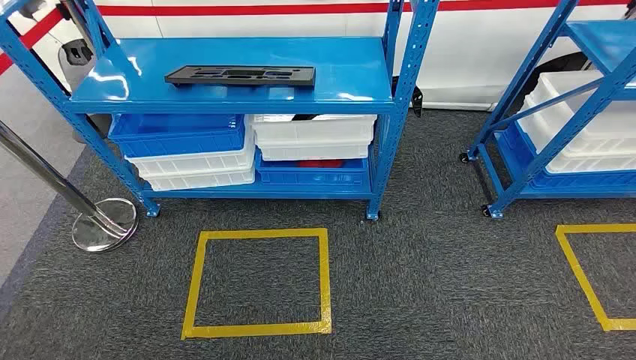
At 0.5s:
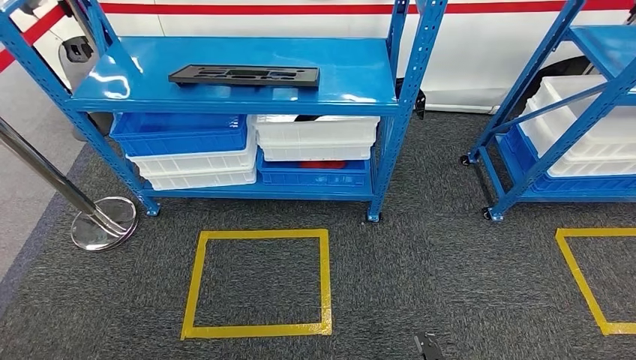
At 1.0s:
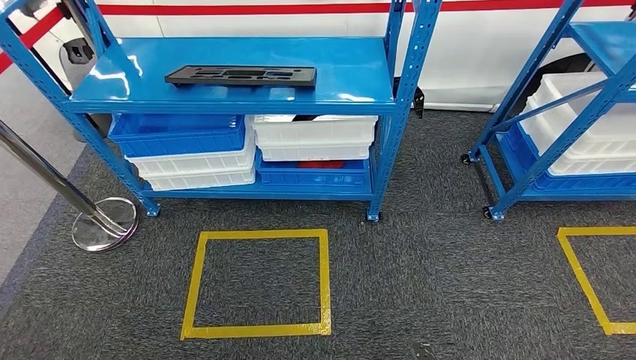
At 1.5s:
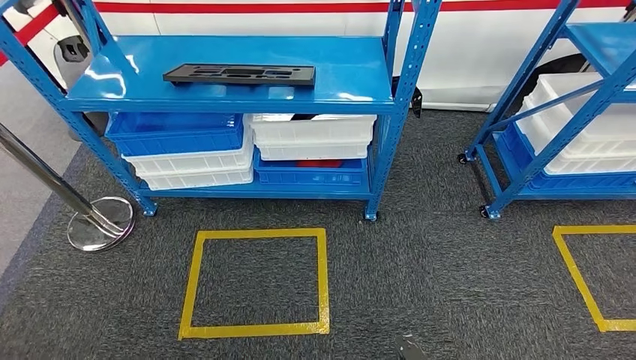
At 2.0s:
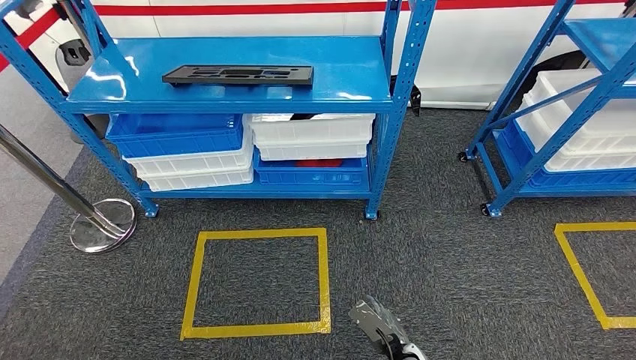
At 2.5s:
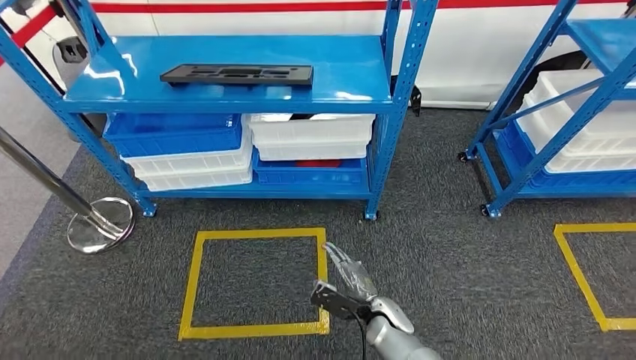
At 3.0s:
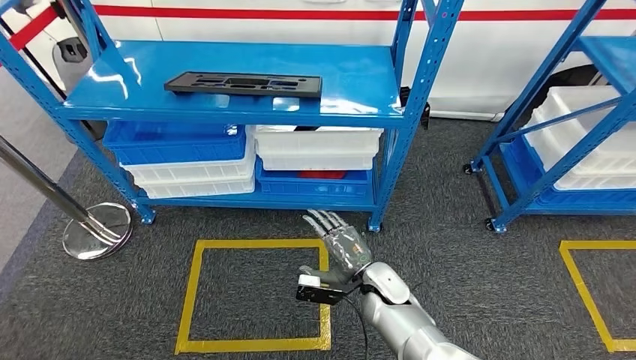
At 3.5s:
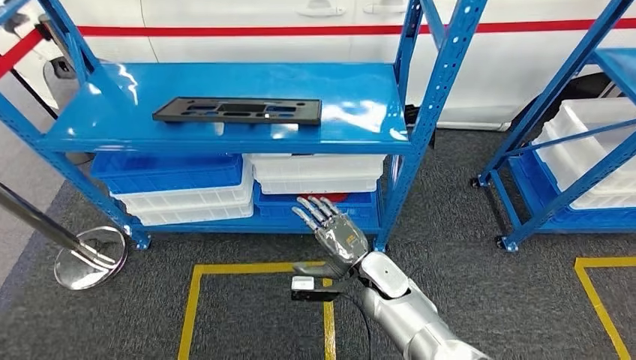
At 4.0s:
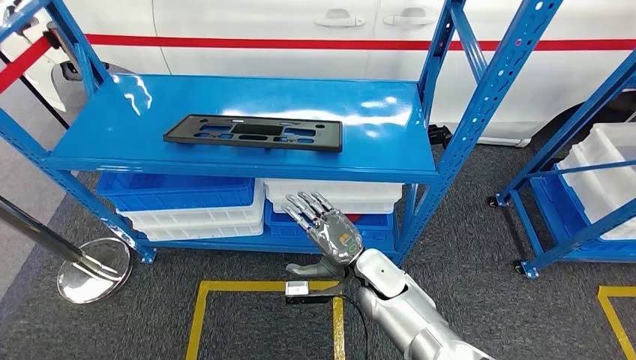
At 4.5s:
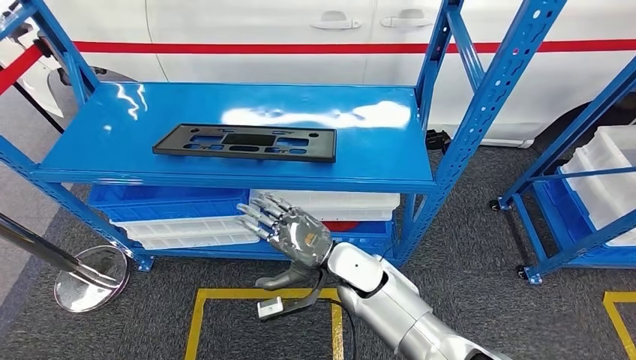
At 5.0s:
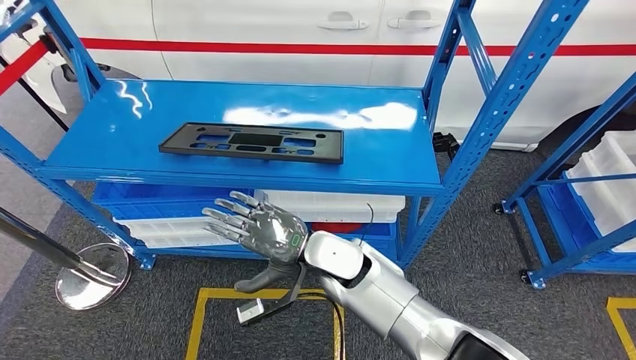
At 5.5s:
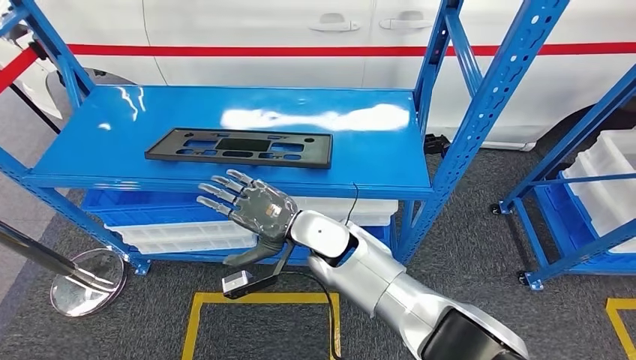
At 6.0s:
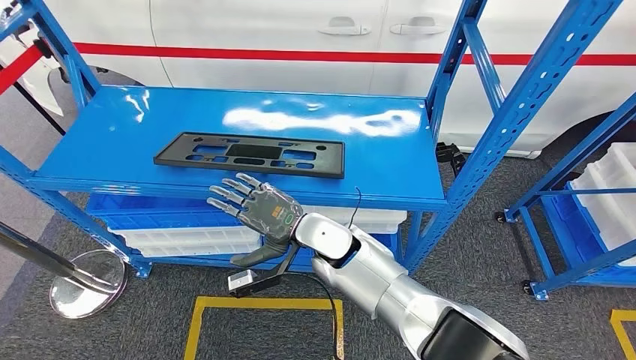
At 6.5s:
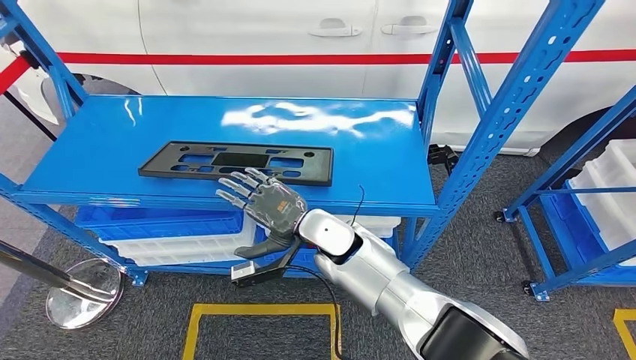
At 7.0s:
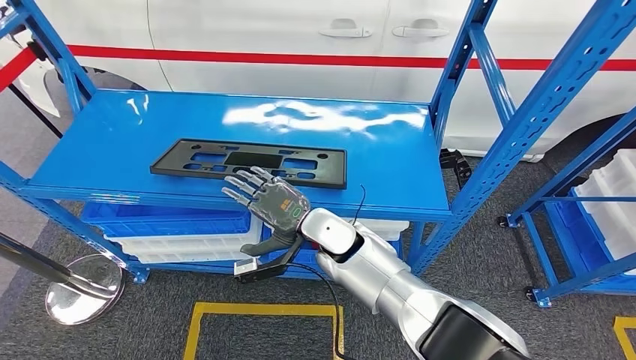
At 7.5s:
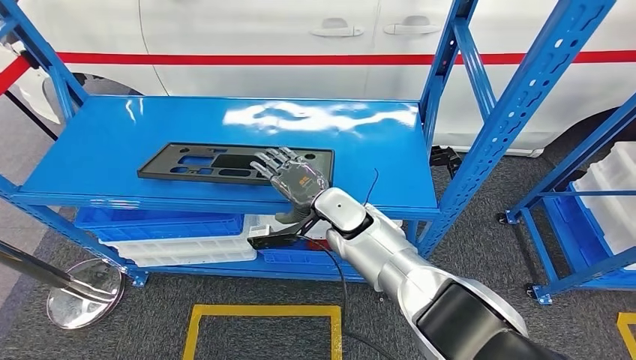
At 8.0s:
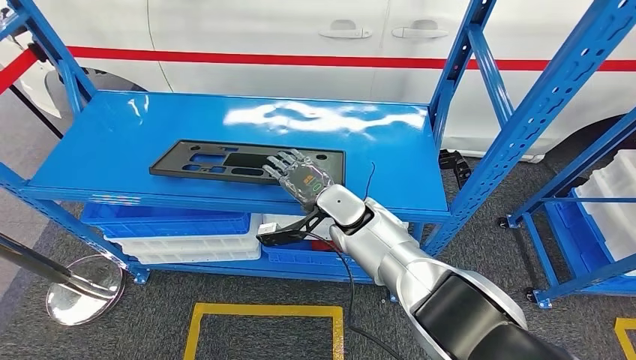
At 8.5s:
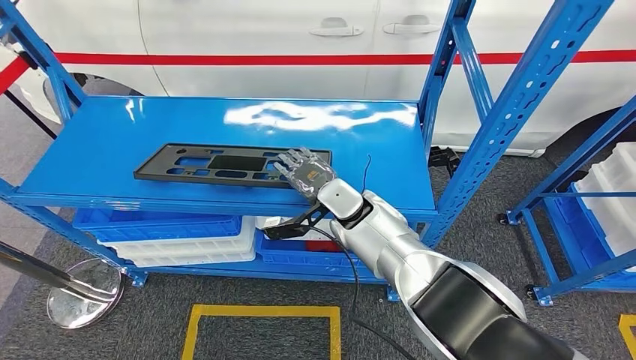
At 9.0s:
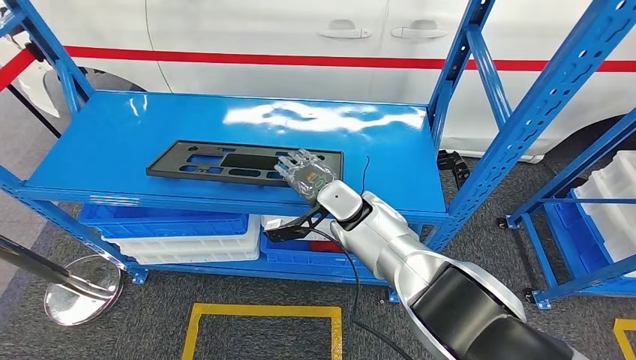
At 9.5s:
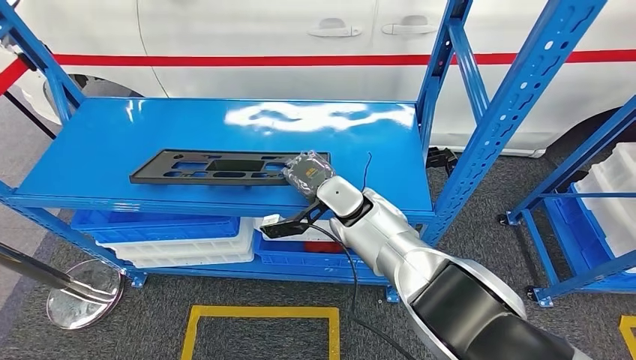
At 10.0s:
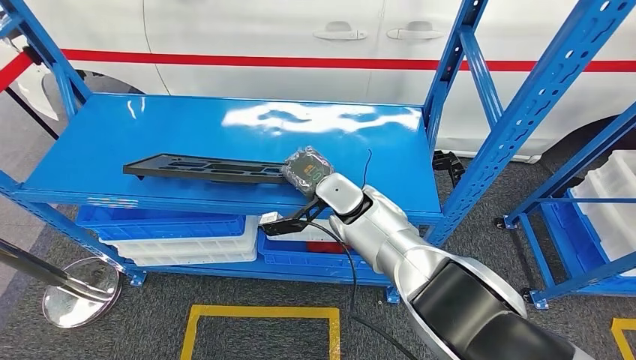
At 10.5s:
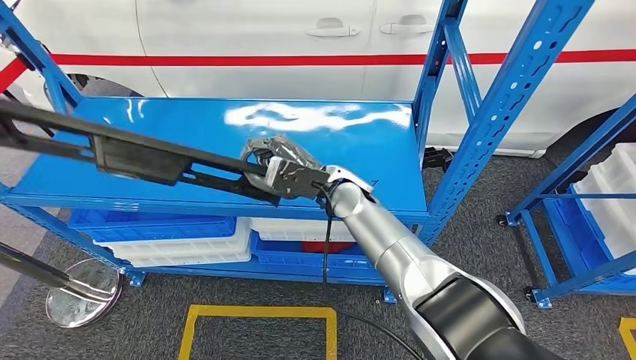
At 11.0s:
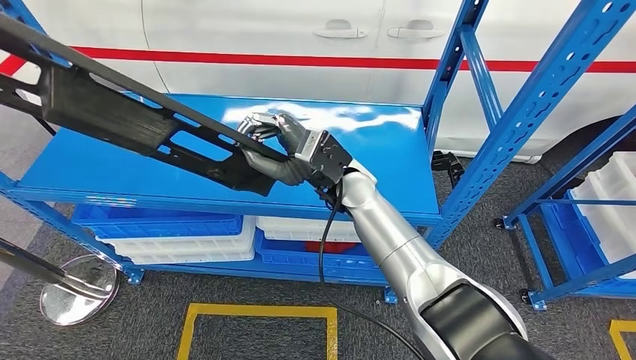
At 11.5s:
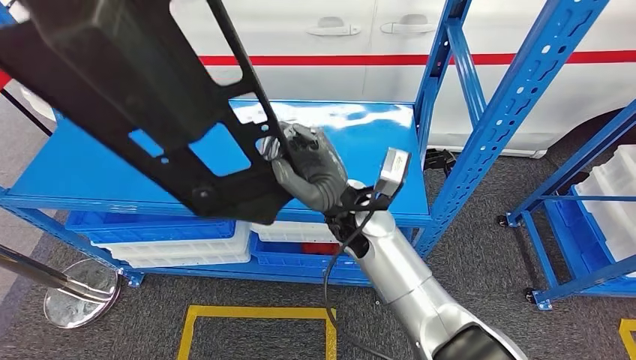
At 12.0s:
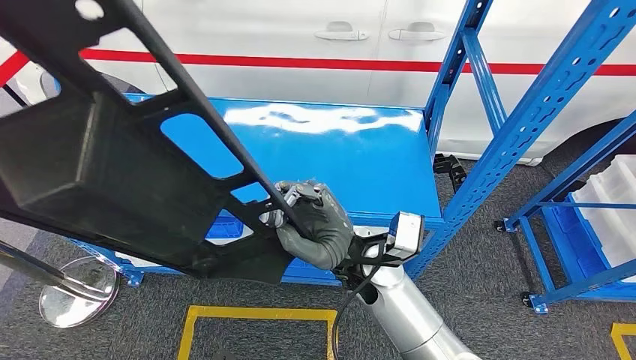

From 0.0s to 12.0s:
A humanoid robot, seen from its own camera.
Step, from 0.0s to 10.5s: Pick up the large material from the shelf.

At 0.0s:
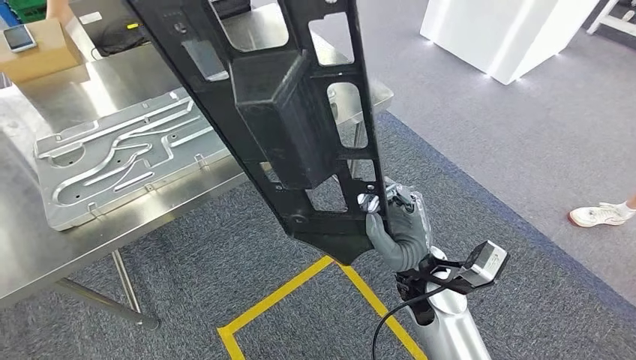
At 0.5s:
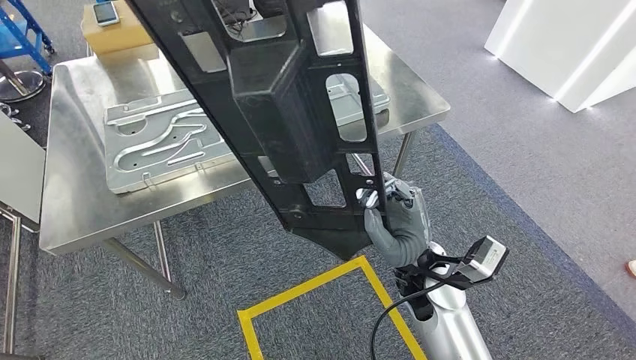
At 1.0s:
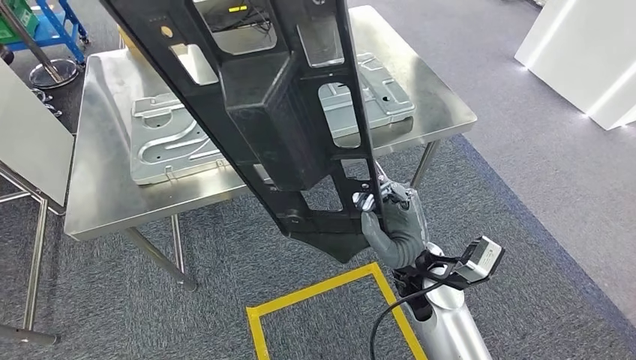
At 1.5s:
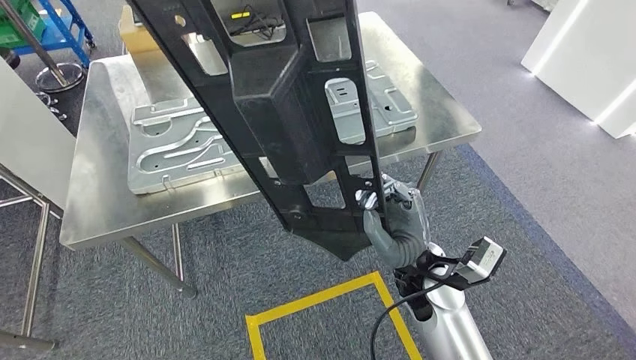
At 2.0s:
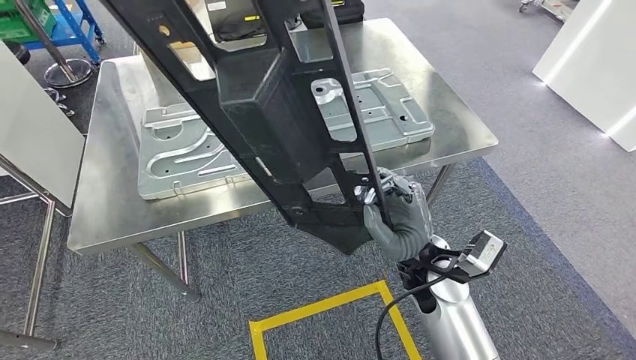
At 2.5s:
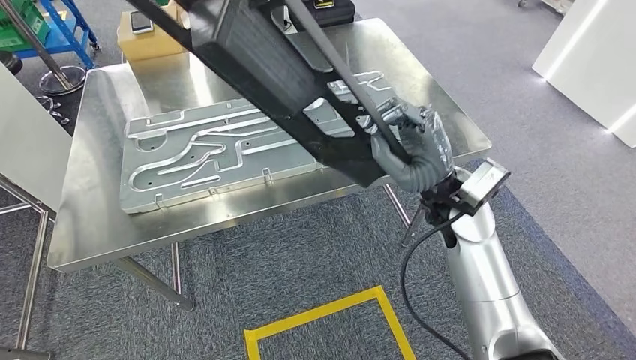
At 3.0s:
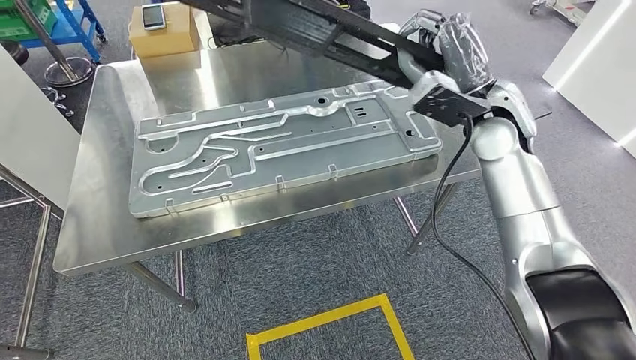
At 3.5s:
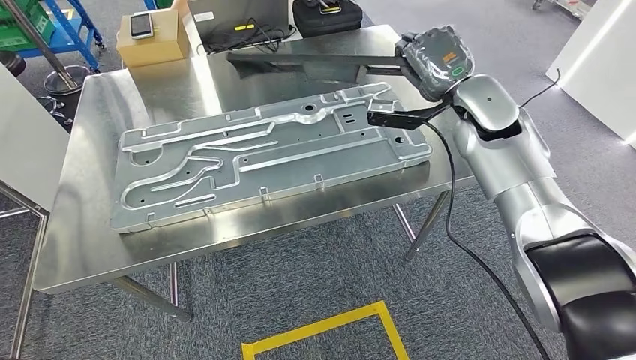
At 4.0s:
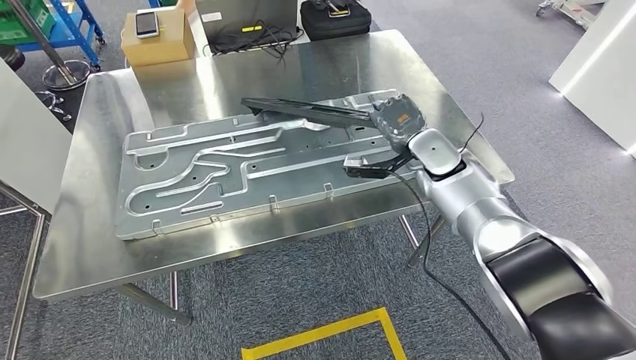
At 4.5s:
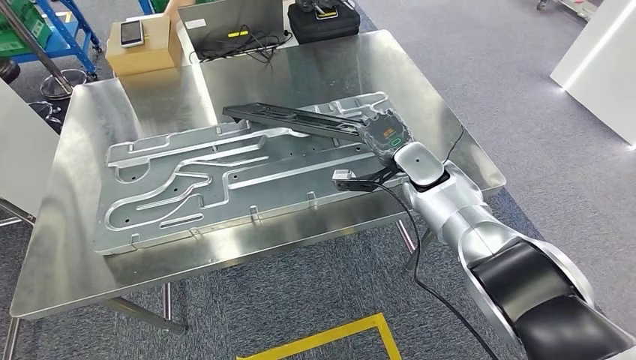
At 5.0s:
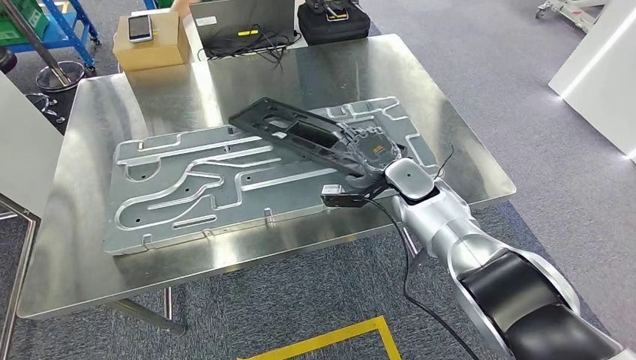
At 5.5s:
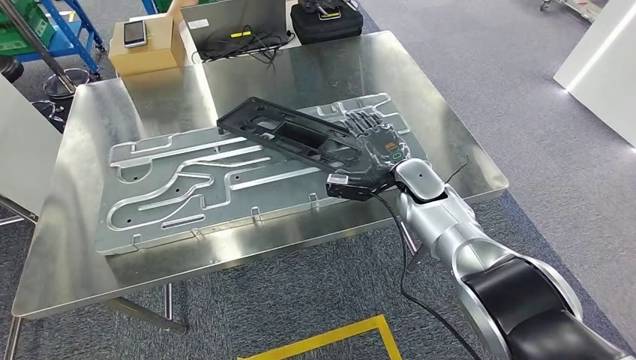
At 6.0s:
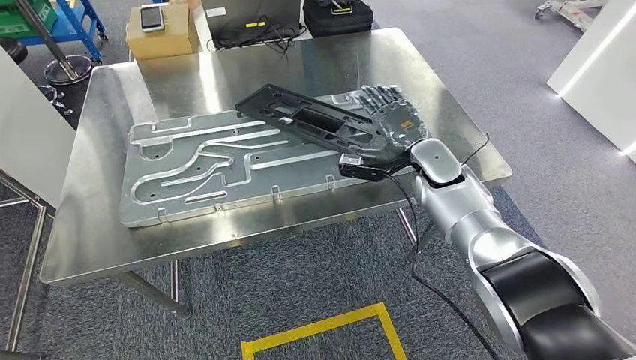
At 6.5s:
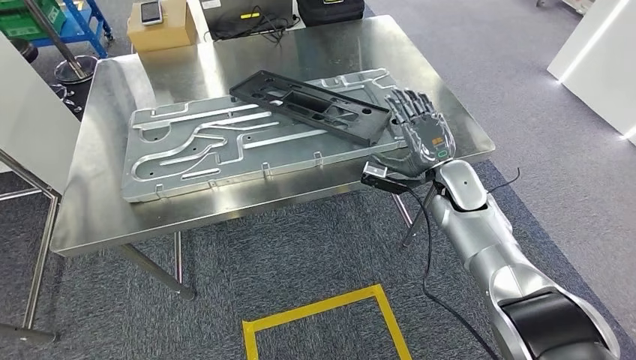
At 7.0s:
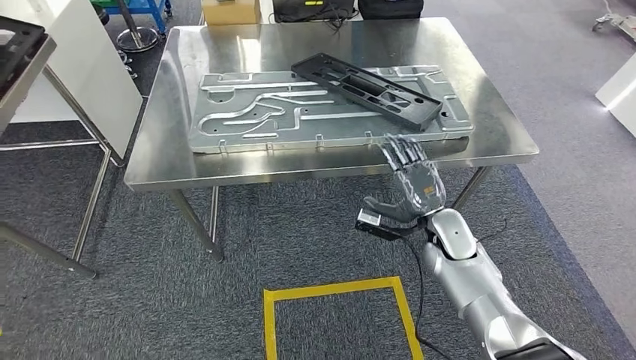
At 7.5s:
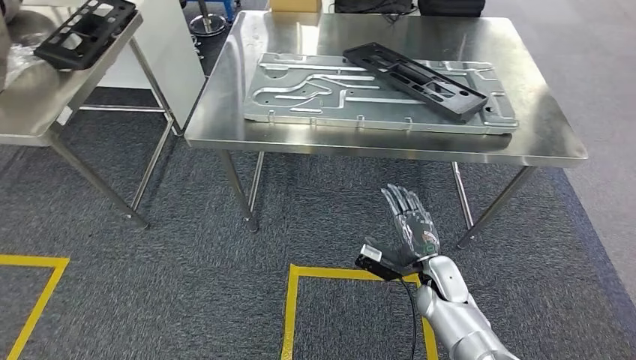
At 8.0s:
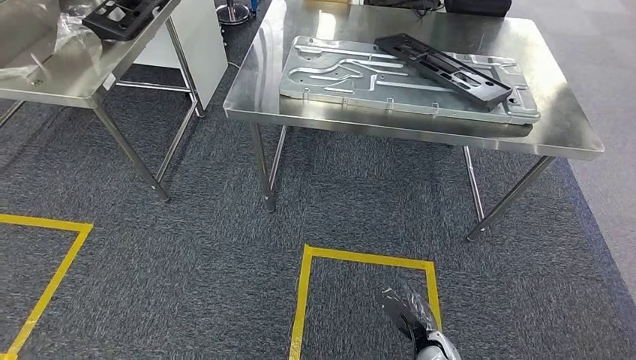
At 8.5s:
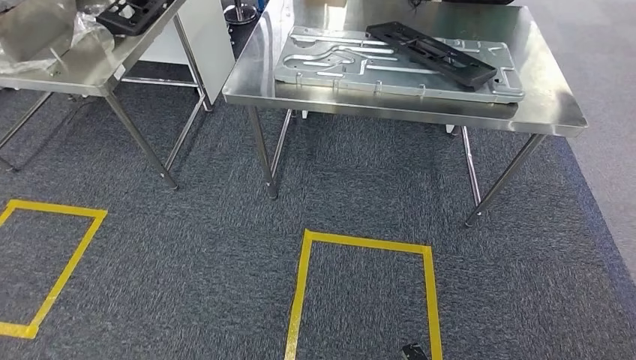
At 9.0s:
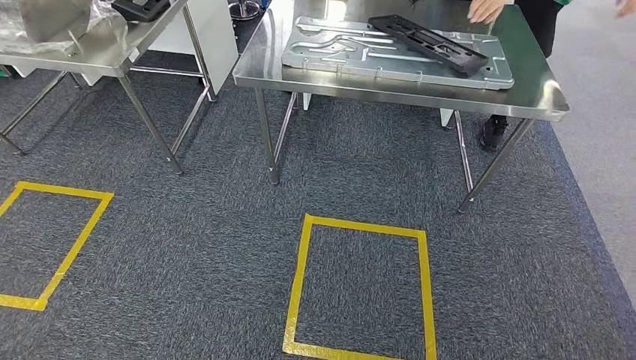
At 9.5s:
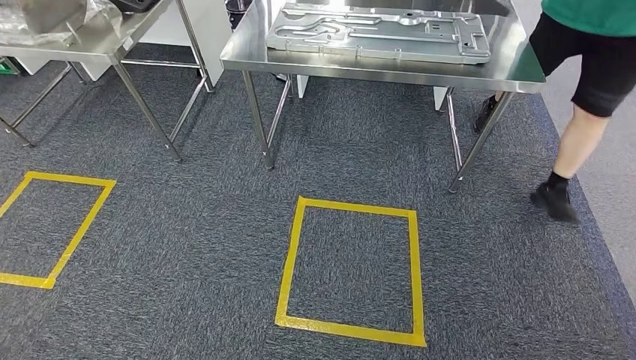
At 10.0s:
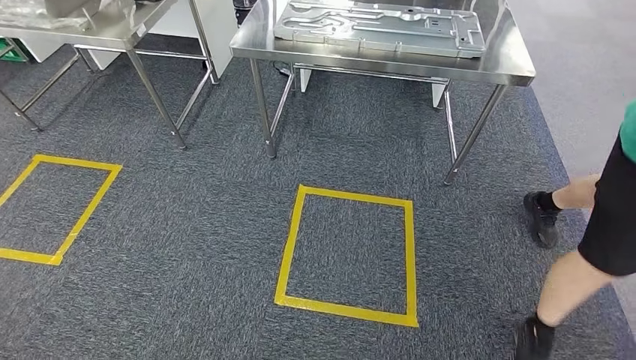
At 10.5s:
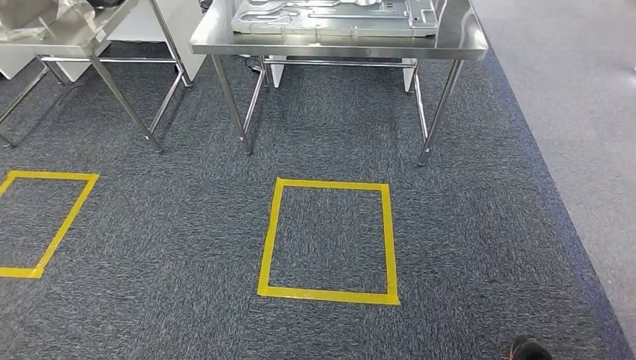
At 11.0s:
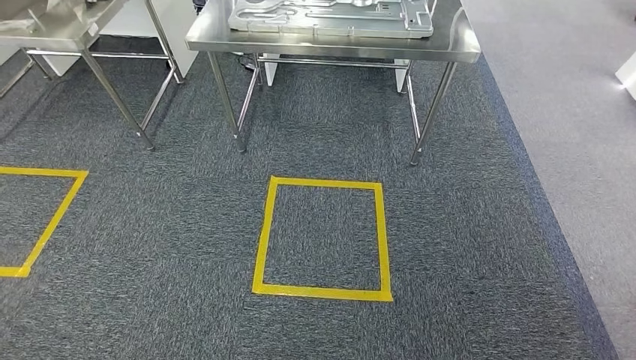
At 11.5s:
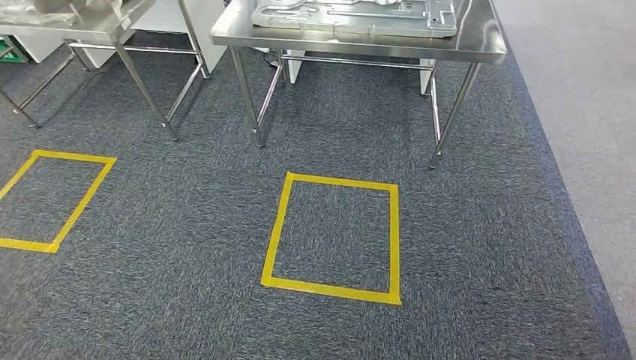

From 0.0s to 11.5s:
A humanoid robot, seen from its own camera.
Step, from 3.5s to 7.0s: Insert the large material into the corresponding slot on the workbench.
